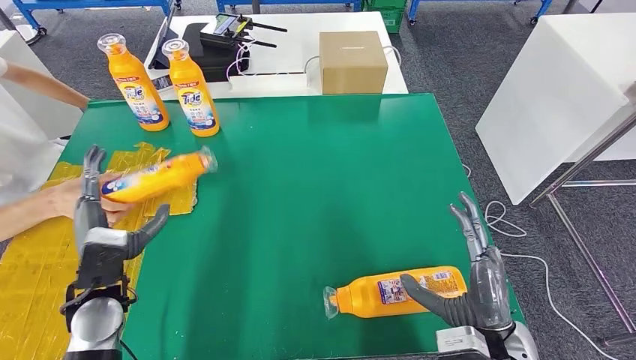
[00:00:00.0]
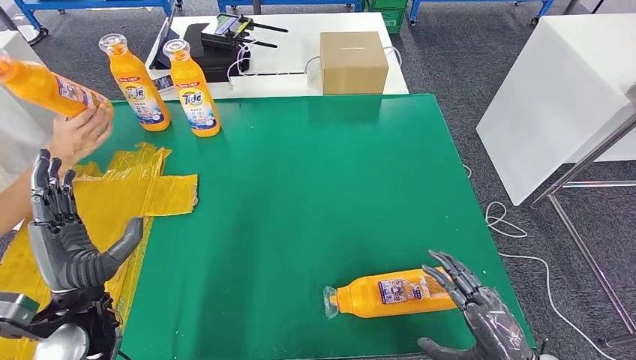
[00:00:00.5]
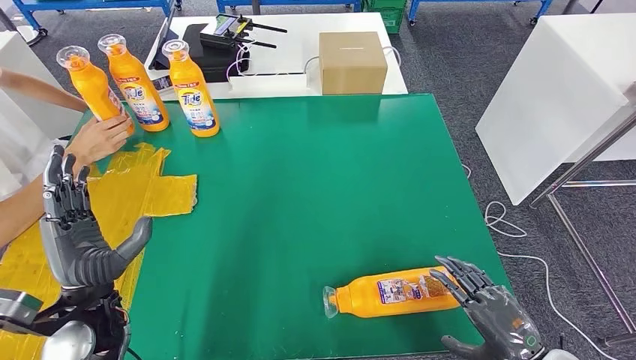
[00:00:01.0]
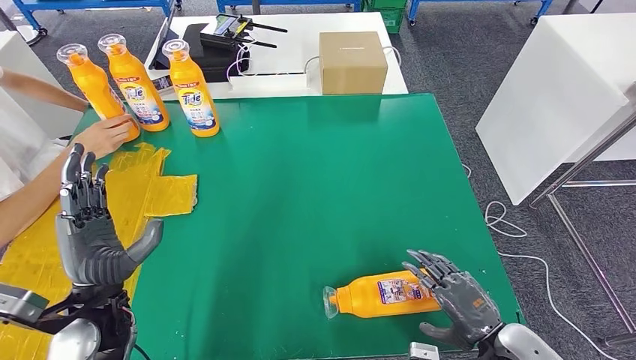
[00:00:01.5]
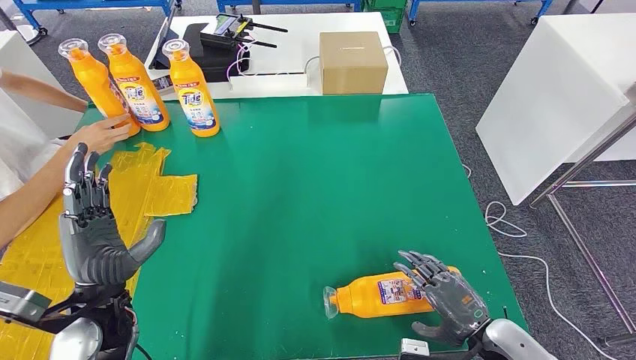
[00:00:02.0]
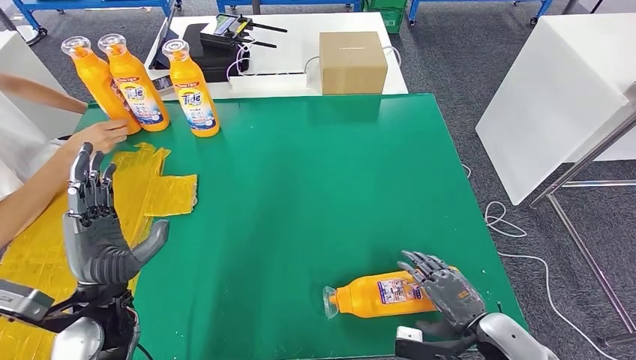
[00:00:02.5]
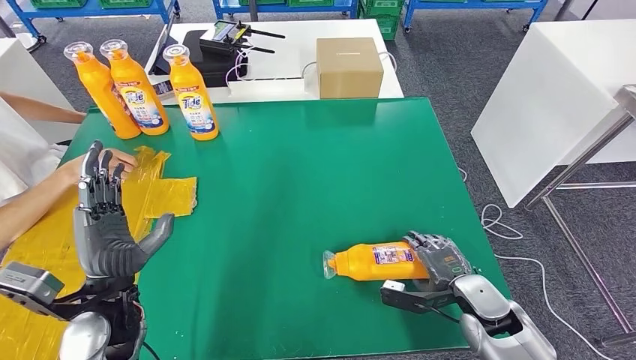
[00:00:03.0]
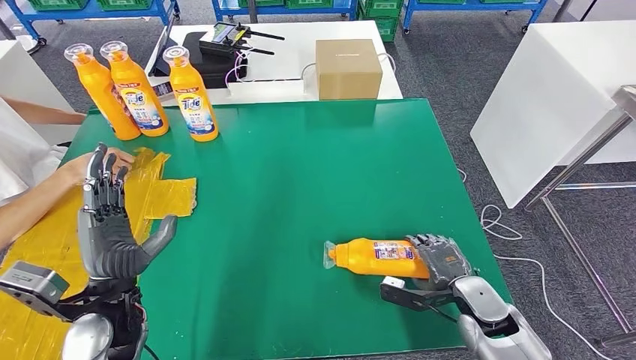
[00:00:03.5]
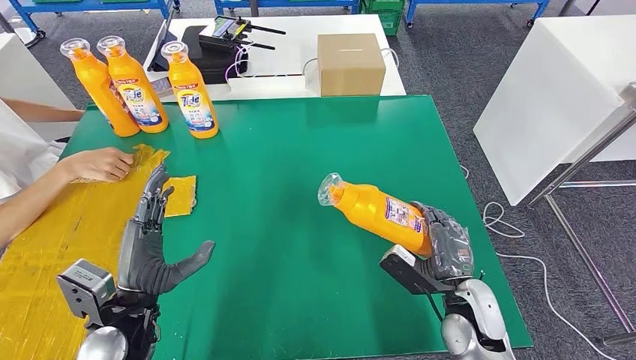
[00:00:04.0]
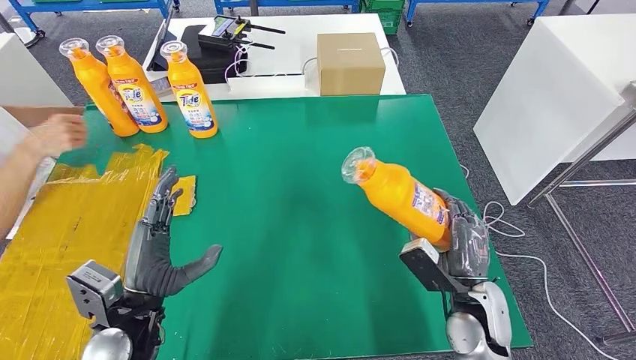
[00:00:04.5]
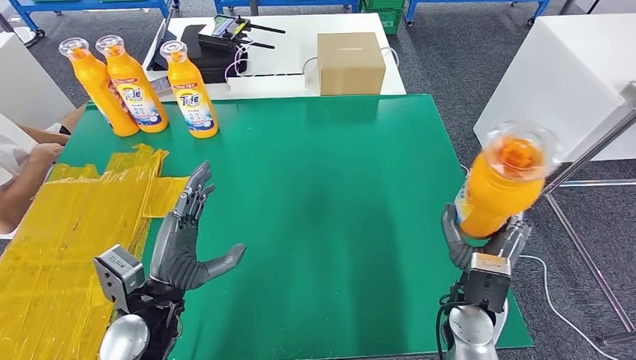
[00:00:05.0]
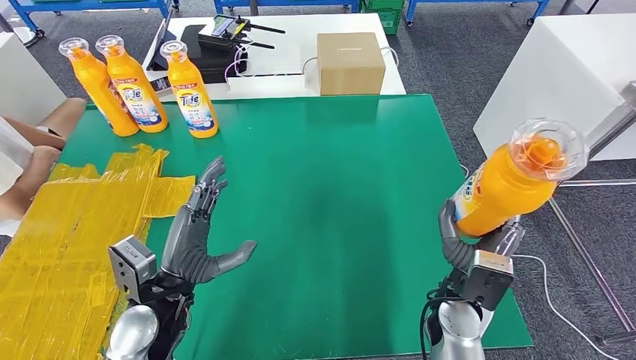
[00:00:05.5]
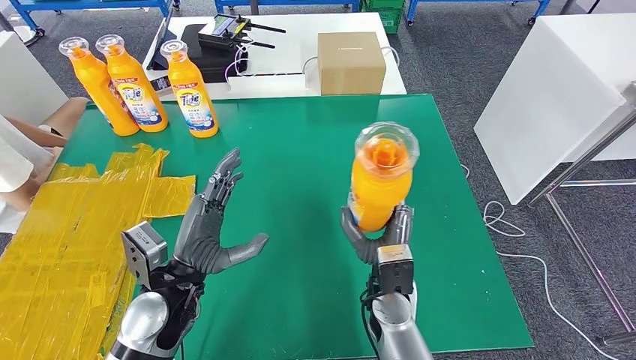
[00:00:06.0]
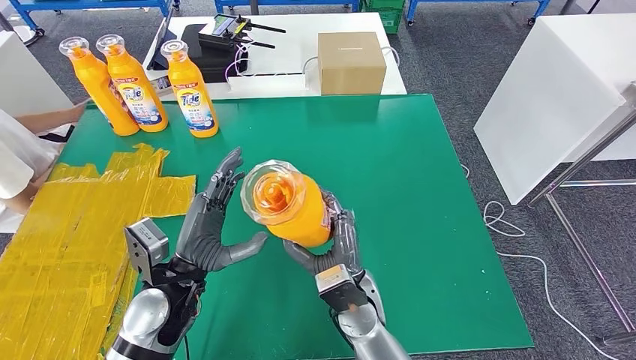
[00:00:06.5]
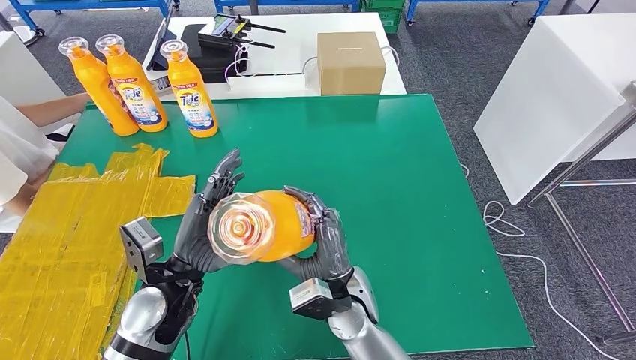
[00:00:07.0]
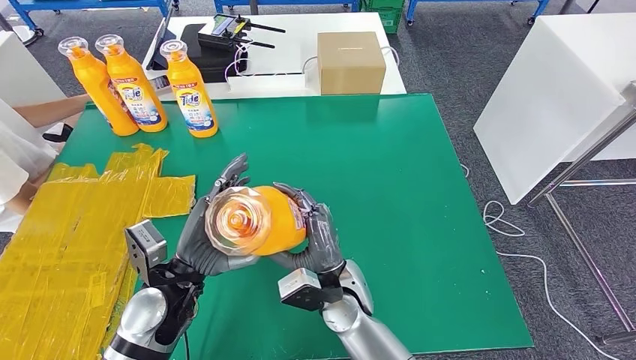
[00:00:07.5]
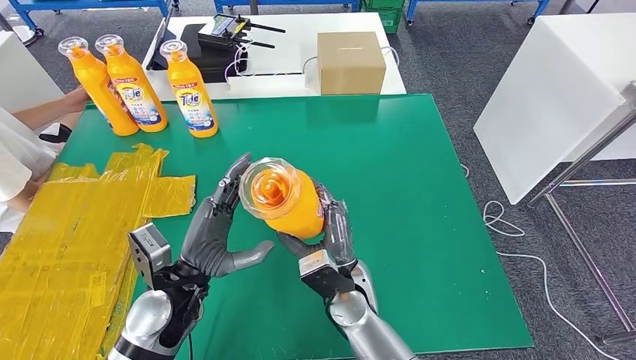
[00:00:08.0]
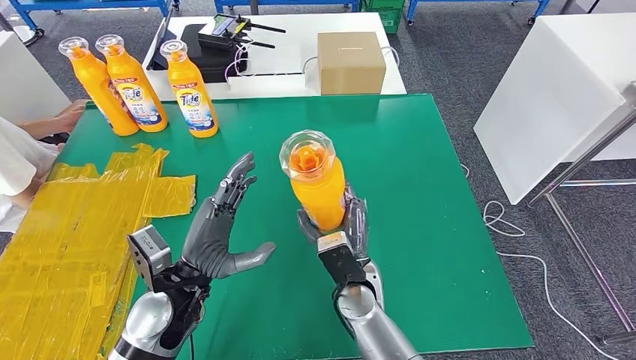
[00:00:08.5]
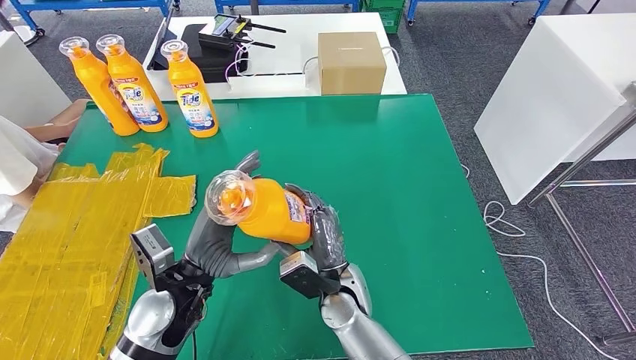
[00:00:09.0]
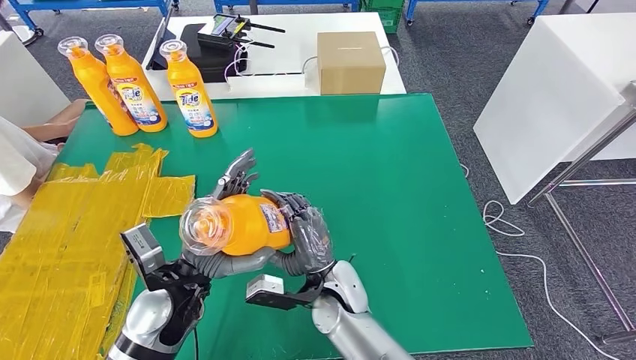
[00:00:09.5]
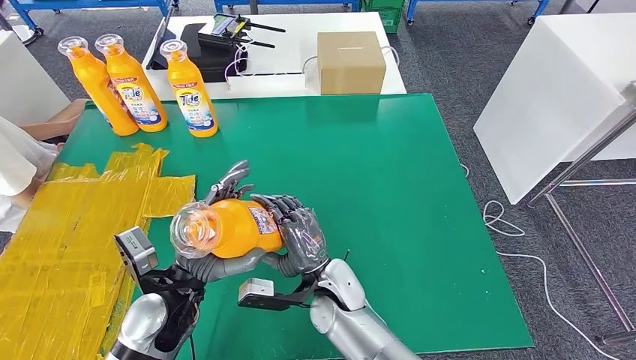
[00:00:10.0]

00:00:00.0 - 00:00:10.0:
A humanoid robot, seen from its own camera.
Step, 00:00:00.0 - 00:00:07.5: Pick up the fast-moving consumer goods bottle from the table.
00:00:00.0 - 00:00:02.0: The left hand ends up about 5 cm from where it was, while the right hand heads downward and to the right, covering about 10 cm.
00:00:06.0 - 00:00:08.0: The right hand travels to the left by some 5 cm.

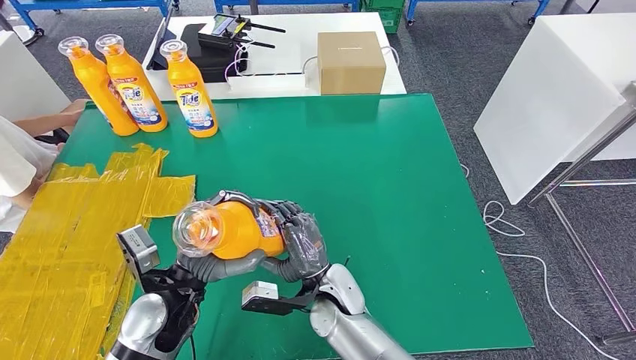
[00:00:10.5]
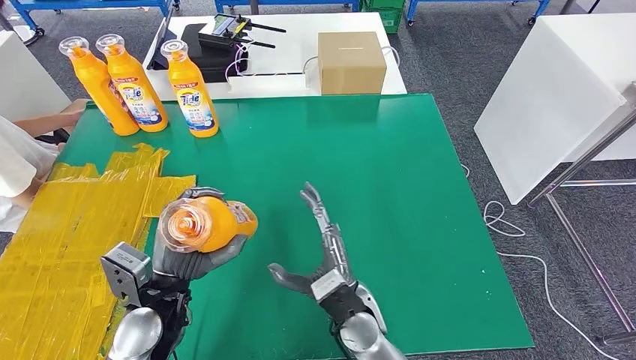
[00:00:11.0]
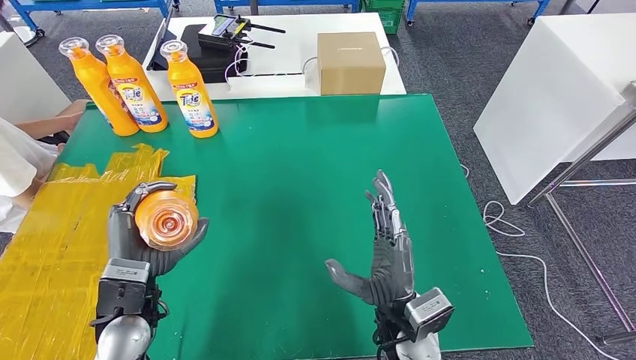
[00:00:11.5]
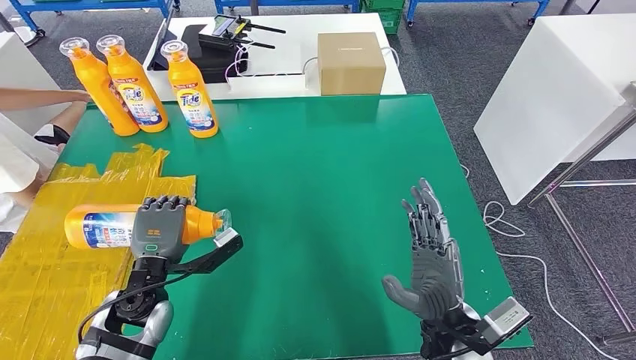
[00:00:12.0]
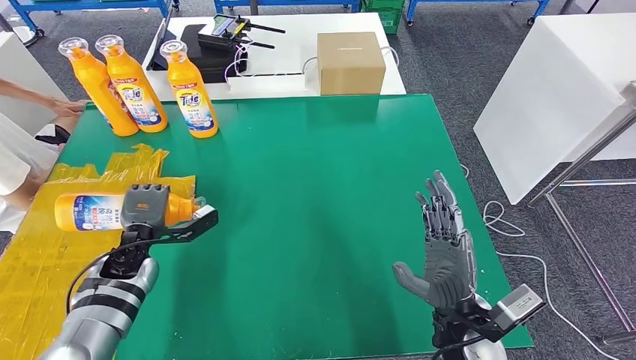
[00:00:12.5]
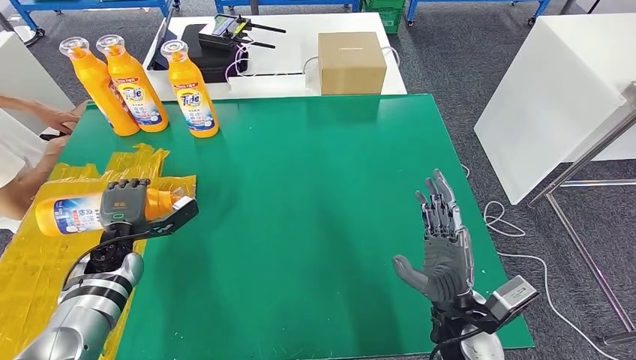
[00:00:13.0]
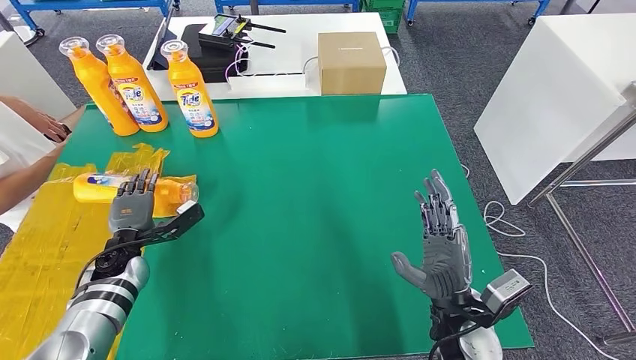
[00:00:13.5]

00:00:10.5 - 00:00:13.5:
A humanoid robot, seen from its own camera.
Step, 00:00:10.5 - 00:00:13.5: Flip the fast-moving consumer goods bottle to the front side.
00:00:10.5 - 00:00:12.0: The right hand is displaced to the right by about 15 cm. Meanwhile the left hand travels to the left by roughly 5 cm.
00:00:12.0 - 00:00:13.5: The left hand moves to the left, forward and downward, roughly 15 cm.
